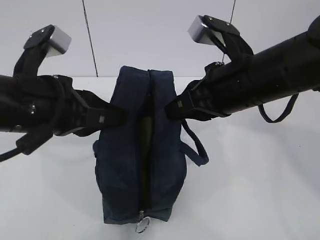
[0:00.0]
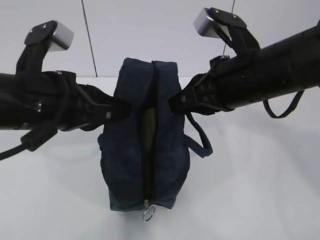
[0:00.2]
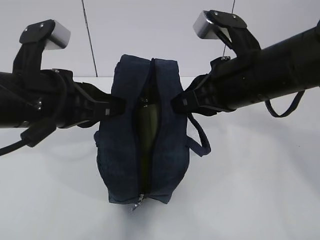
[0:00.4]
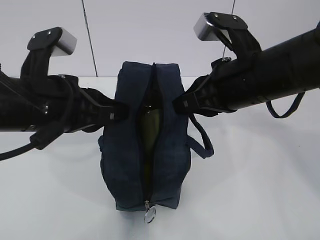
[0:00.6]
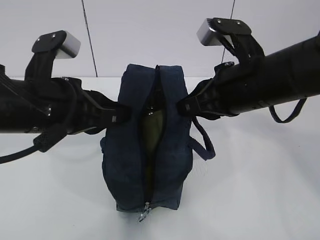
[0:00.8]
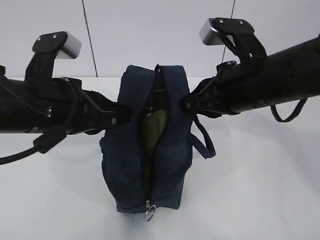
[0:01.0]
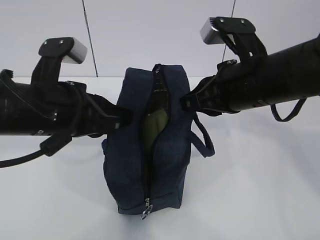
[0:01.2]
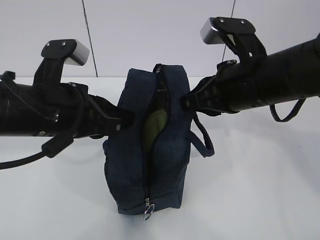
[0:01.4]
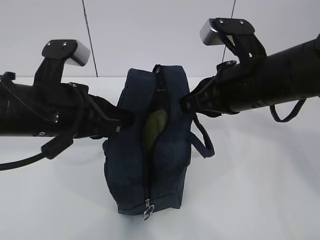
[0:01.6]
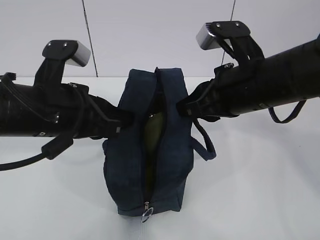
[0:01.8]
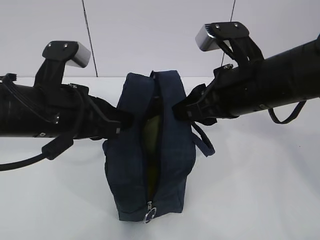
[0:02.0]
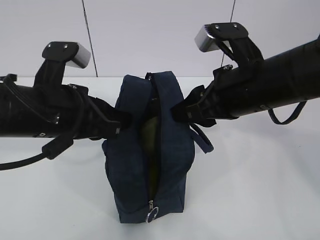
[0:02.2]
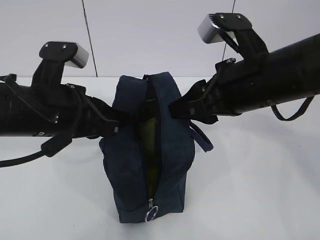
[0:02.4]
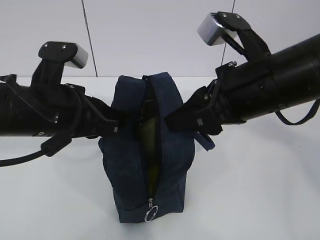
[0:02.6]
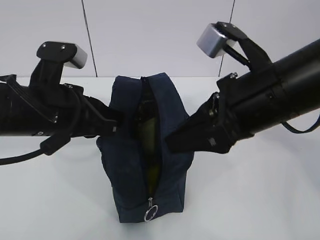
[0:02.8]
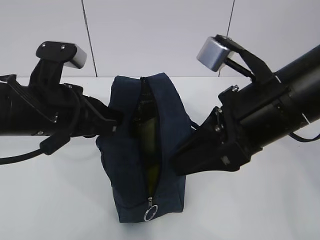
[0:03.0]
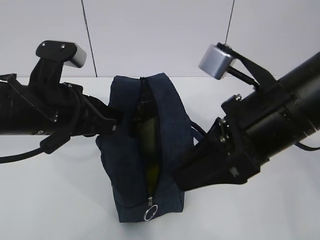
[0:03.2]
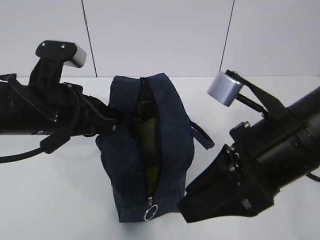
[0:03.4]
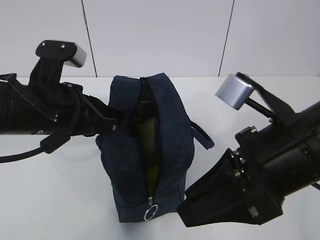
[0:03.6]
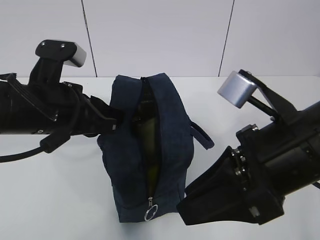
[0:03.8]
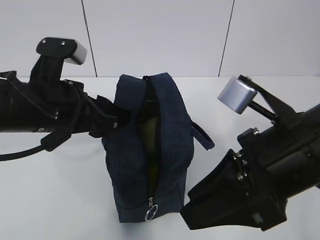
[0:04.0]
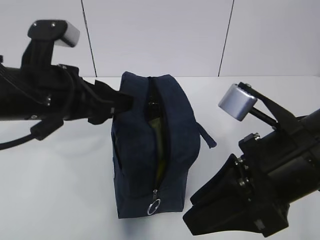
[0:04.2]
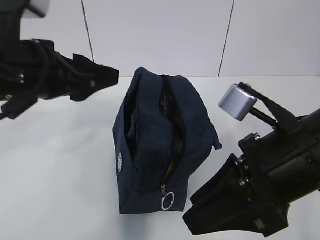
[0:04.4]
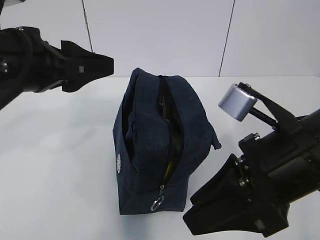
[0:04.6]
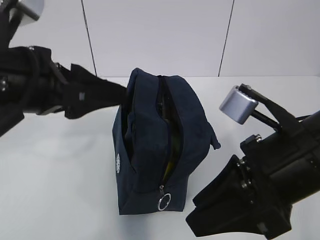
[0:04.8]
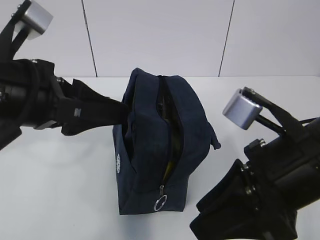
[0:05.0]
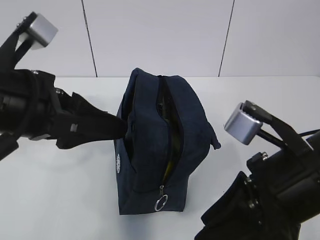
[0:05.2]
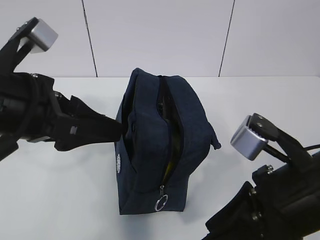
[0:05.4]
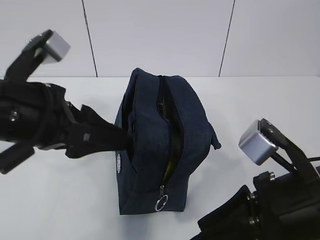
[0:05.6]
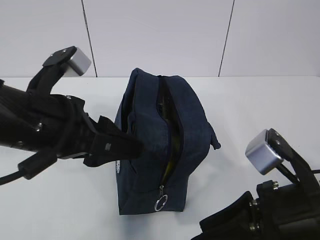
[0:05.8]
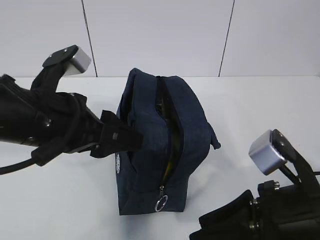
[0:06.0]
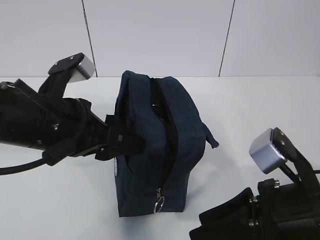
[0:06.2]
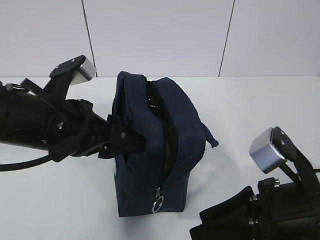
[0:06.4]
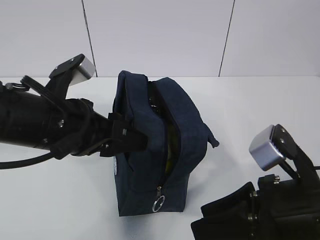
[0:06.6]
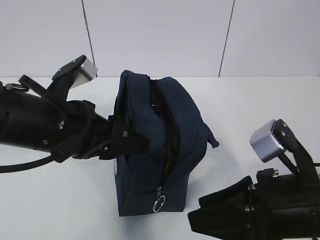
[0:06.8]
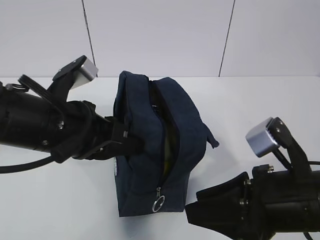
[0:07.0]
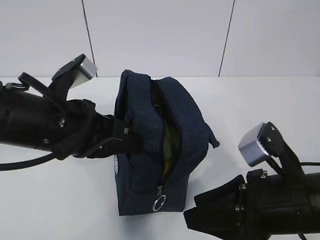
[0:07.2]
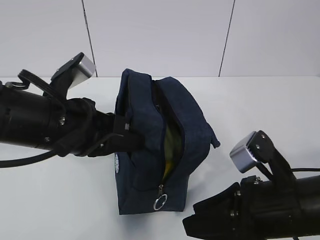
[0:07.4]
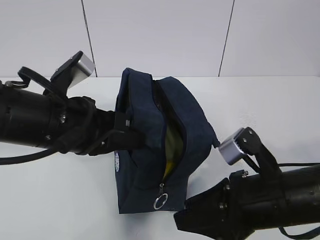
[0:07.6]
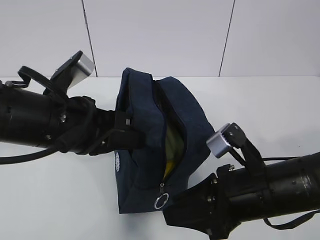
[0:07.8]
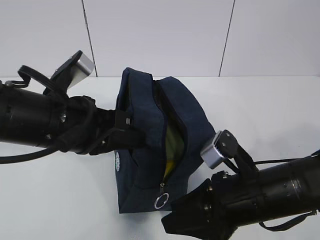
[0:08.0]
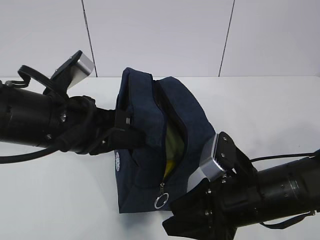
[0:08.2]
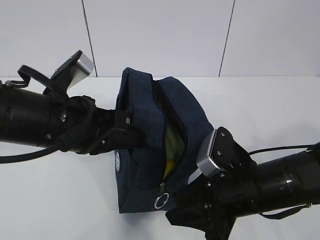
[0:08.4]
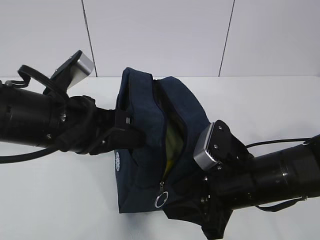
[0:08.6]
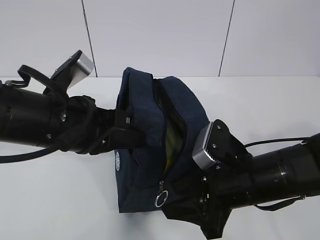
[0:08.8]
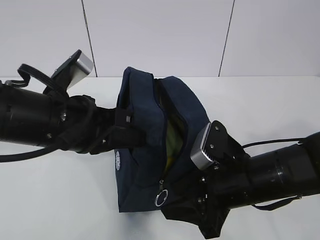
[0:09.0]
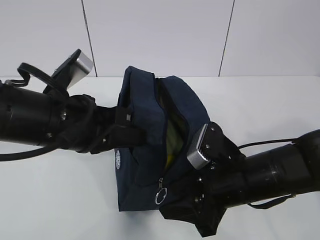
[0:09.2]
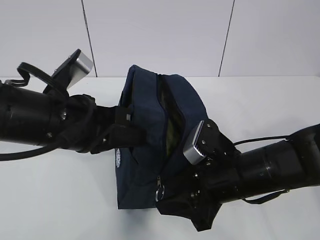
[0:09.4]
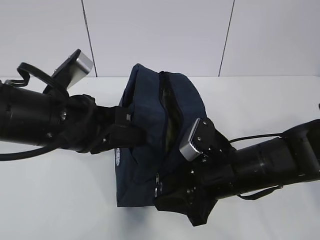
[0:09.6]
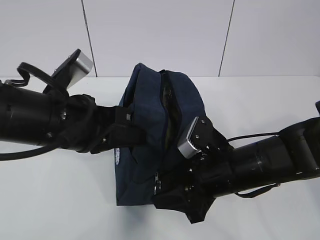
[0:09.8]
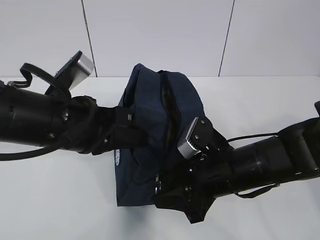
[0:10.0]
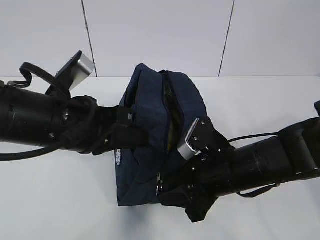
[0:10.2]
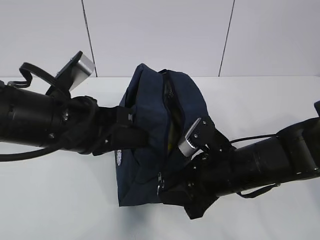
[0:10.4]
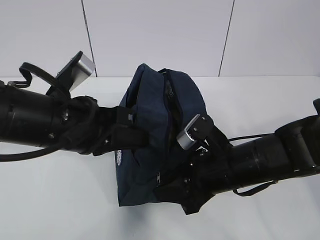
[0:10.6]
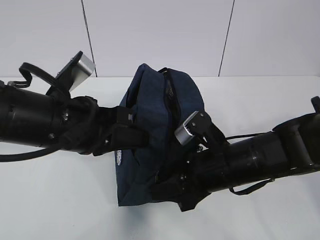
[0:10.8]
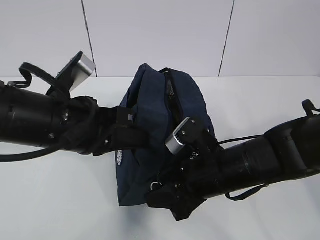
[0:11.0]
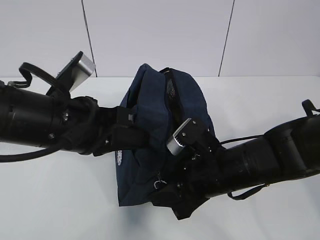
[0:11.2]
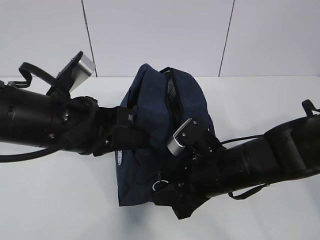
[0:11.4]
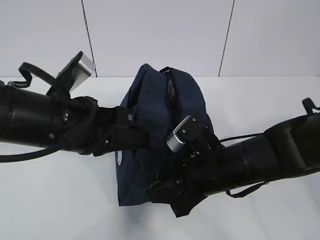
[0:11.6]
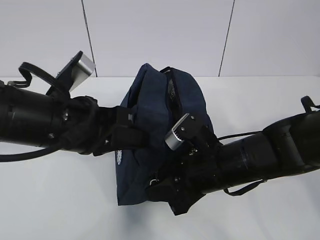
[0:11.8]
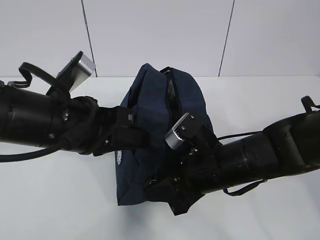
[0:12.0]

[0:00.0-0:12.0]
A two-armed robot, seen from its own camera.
0:00.0 to 0:01.6: The grippers move only a little.
0:01.6 to 0:03.0: The right gripper travels backward by approximately 5 cm, and opens up.
0:03.0 to 0:04.4: The right gripper shifts by roughly 5 cm. The left gripper moves upward, about 5 cm, and opens up.
0:04.4 to 0:06.0: The left gripper changes place by approximately 5 cm; the right gripper heads downward, covering some 5 cm.
0:06.0 to 0:07.6: The left gripper closes, while the right gripper moves approximately 5 cm.
0:07.6 to 0:09.0: The right gripper changes place by some 5 cm.
0:09.0 to 0:12.0: The grippers move only a little.

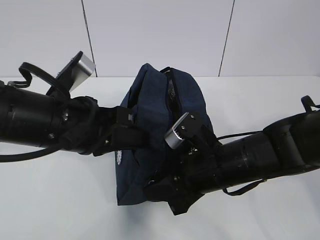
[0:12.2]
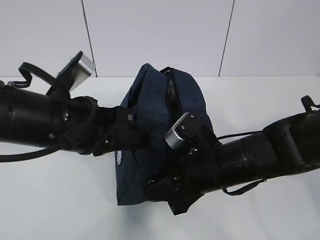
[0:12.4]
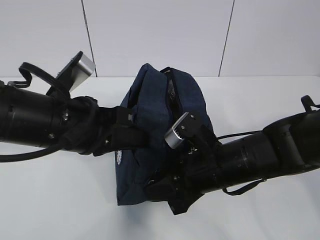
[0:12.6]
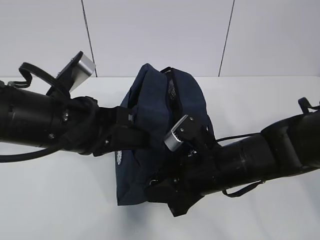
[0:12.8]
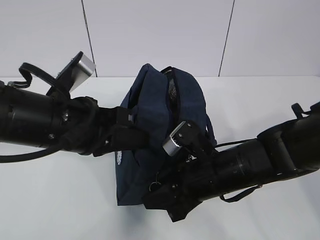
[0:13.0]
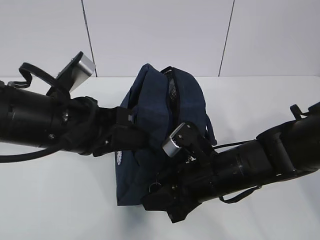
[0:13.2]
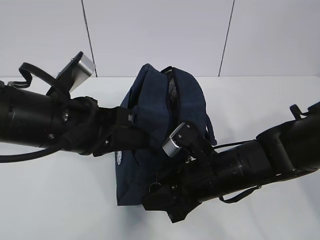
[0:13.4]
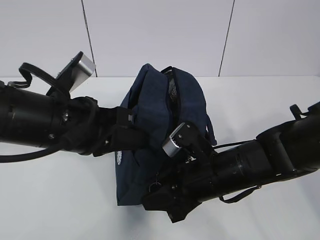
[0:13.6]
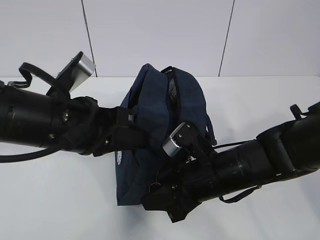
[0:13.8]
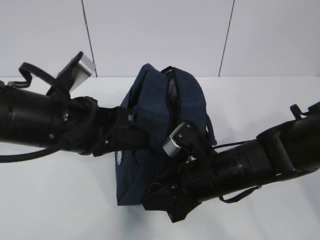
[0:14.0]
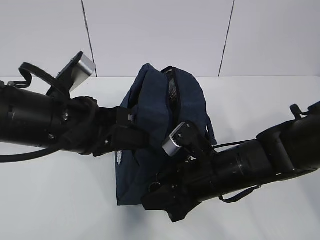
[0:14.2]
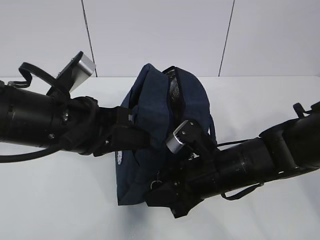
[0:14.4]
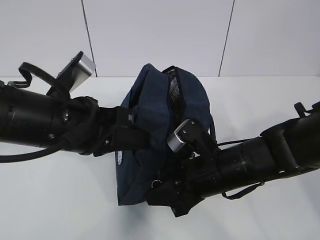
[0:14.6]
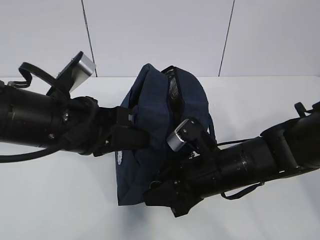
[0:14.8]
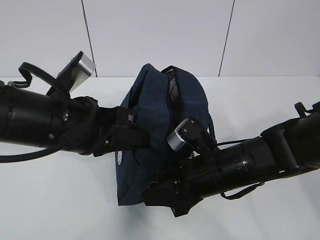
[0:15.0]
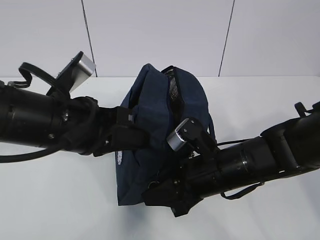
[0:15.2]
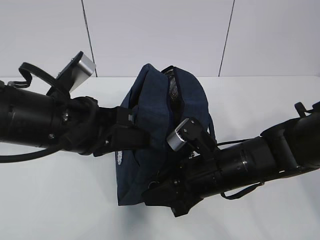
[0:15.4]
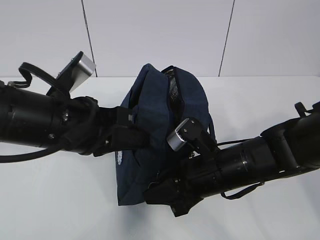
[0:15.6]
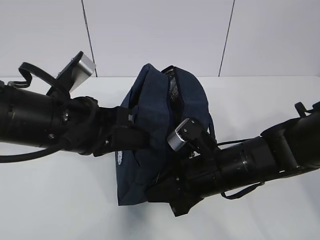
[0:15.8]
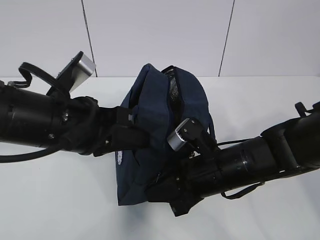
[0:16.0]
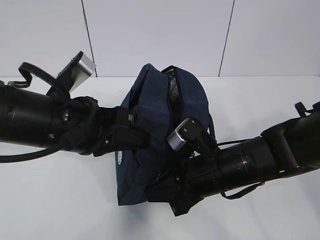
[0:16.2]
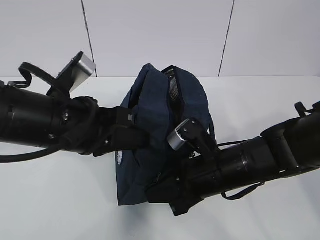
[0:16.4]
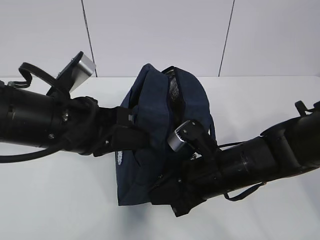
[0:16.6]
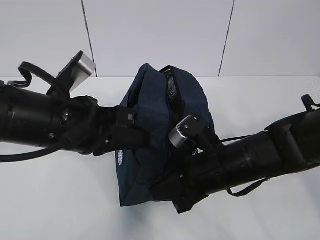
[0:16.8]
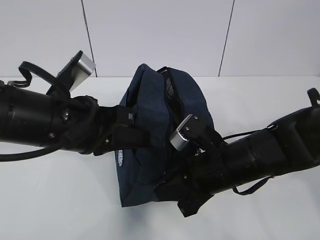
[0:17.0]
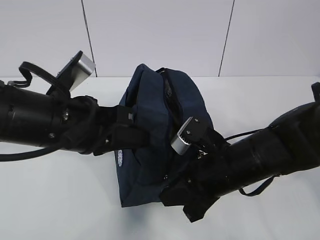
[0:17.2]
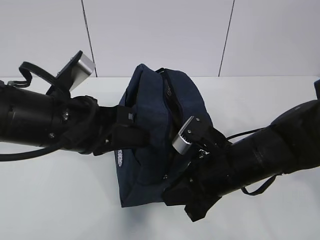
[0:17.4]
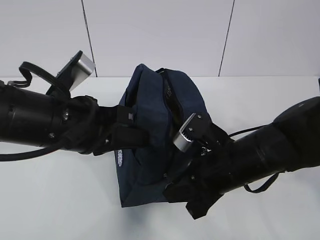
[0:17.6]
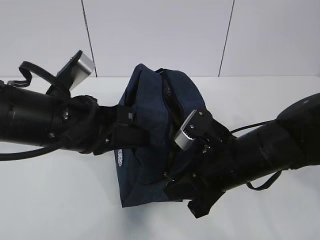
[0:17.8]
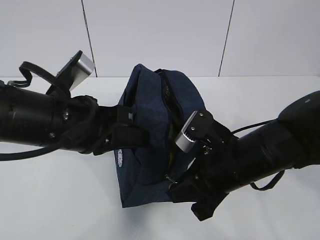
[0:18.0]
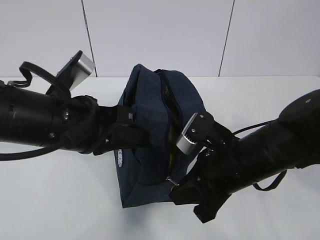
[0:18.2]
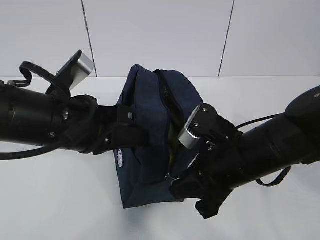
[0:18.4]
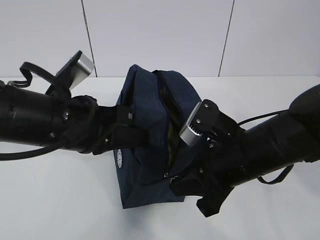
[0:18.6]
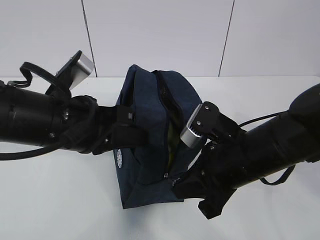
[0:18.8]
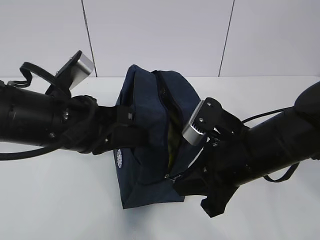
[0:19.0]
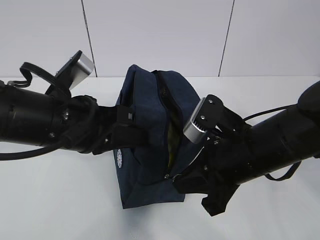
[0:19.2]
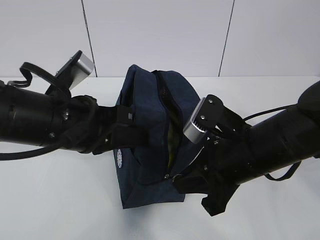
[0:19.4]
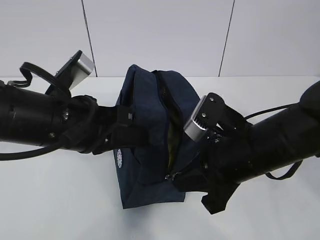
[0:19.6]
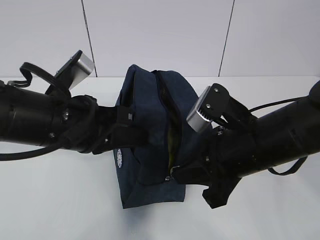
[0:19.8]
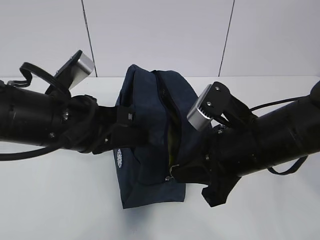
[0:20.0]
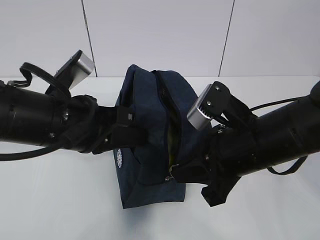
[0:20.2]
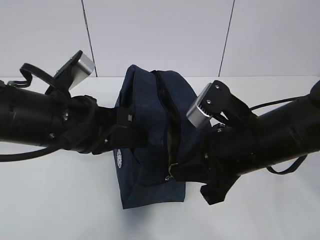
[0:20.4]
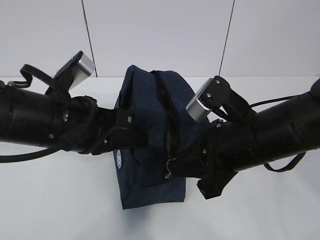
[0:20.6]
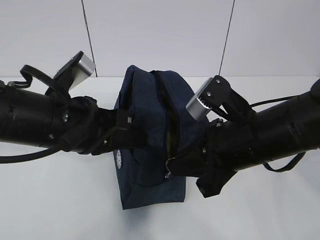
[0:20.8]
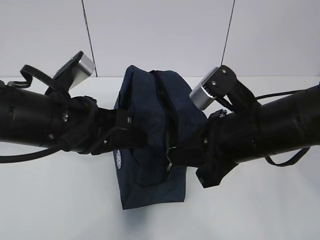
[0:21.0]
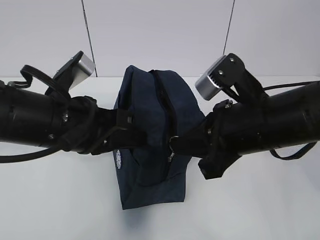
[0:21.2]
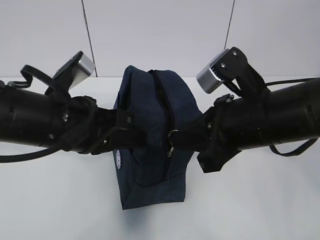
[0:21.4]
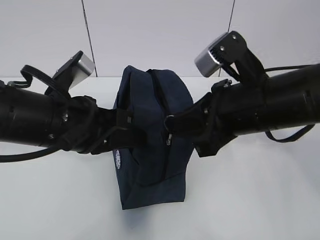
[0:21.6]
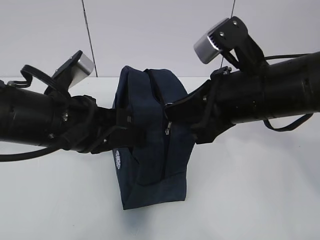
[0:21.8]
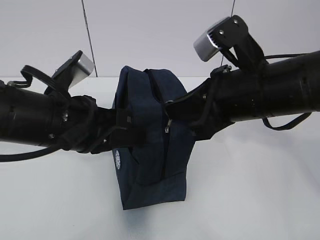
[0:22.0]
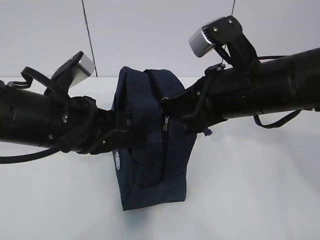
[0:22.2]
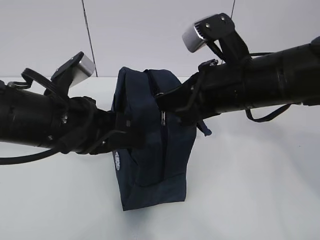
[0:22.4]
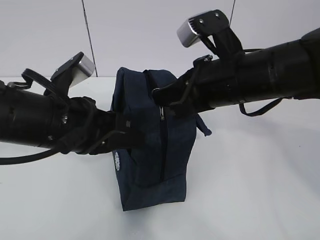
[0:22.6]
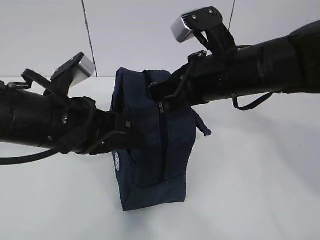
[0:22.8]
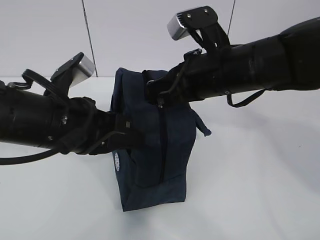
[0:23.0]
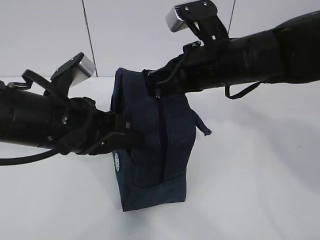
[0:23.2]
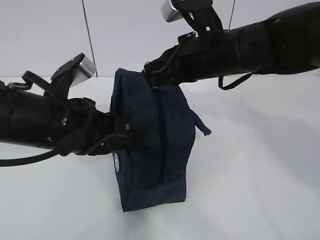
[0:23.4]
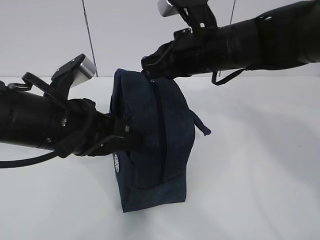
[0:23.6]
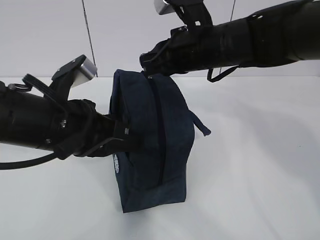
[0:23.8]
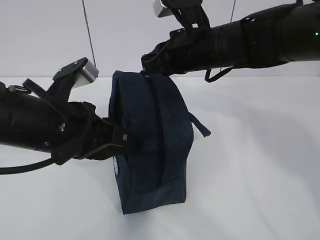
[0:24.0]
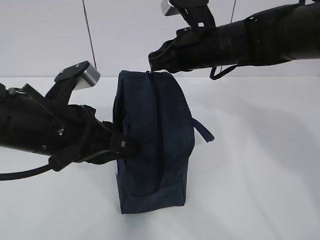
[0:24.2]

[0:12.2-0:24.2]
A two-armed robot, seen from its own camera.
Step, 0:16.2 to 0:21.4: Pull the zipper with your right hand.
0:12.2 to 0:13.8: There are only small adjustments of the grippers.
0:13.8 to 0:15.2: Both grippers stay put.
0:15.2 to 0:16.6: The right gripper closes.
0:16.6 to 0:18.2: There are only small adjustments of the grippers.
0:18.2 to 0:19.8: The grippers stay close to where they were, moving slightly.
0:19.8 to 0:21.2: The grippers move only a little.
0:21.2 to 0:22.6: The right gripper moves some 5 cm.
0:22.6 to 0:24.2: The right gripper travels forward by about 10 cm.
